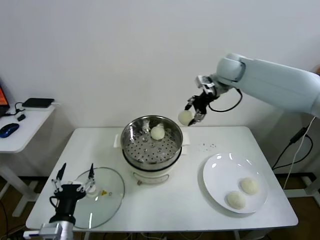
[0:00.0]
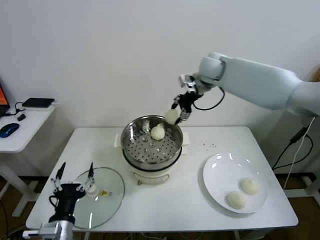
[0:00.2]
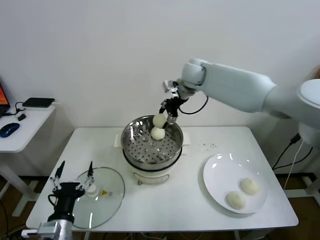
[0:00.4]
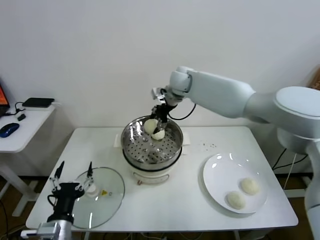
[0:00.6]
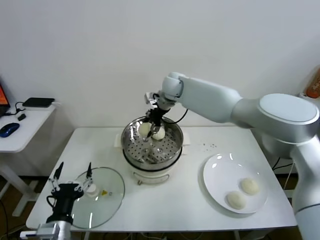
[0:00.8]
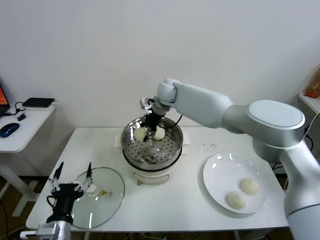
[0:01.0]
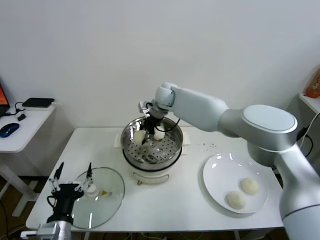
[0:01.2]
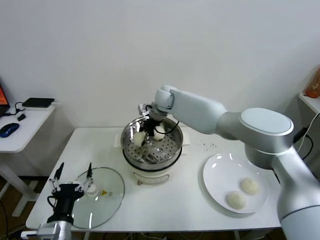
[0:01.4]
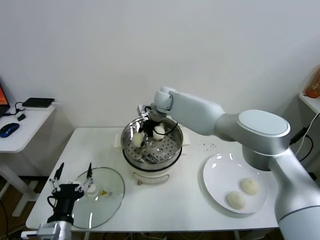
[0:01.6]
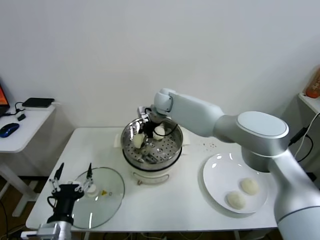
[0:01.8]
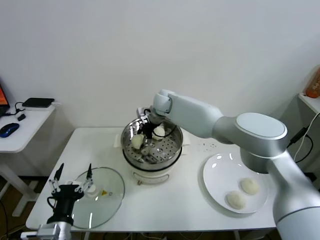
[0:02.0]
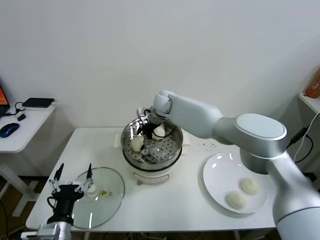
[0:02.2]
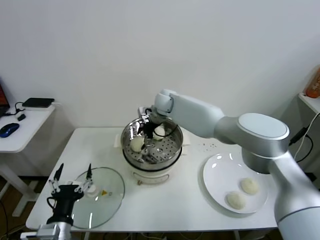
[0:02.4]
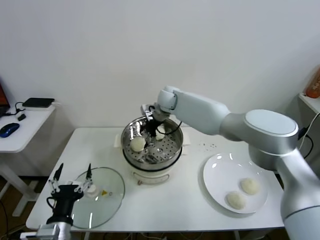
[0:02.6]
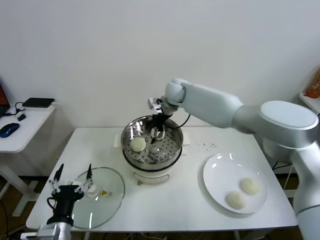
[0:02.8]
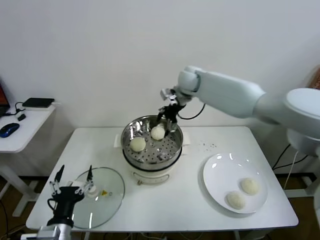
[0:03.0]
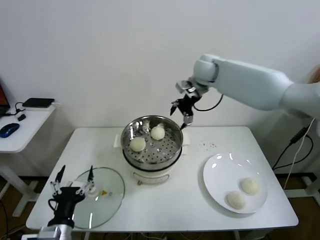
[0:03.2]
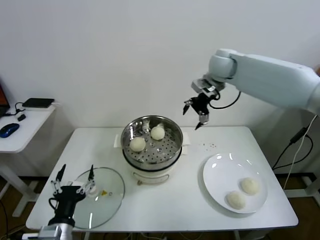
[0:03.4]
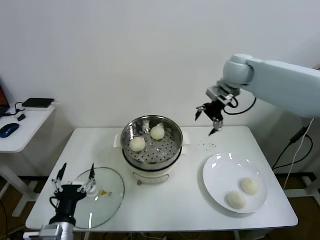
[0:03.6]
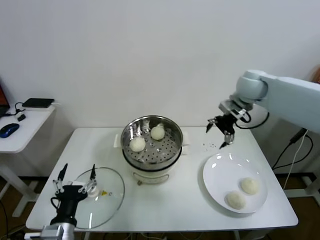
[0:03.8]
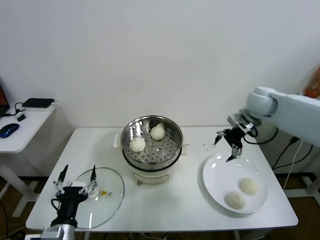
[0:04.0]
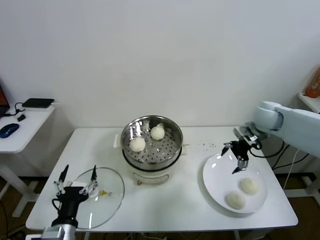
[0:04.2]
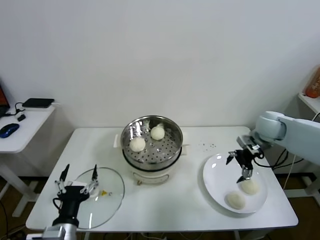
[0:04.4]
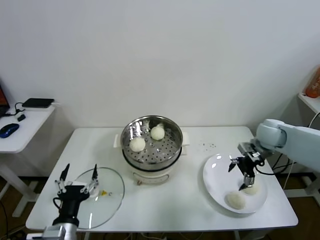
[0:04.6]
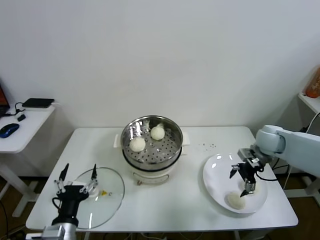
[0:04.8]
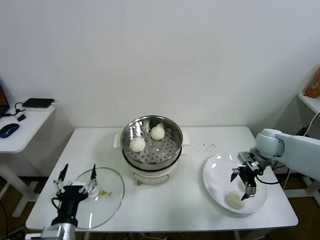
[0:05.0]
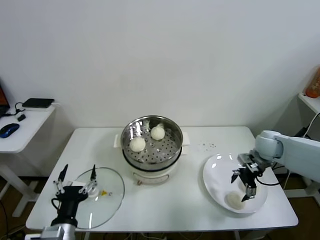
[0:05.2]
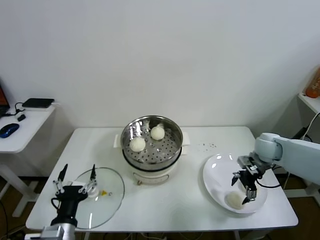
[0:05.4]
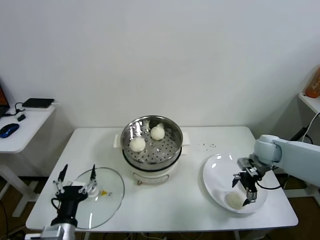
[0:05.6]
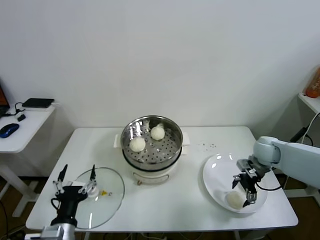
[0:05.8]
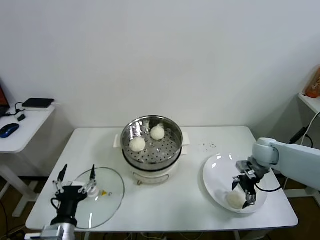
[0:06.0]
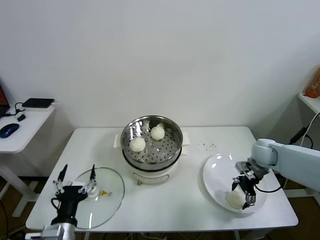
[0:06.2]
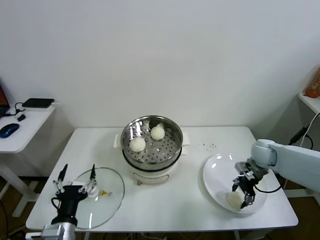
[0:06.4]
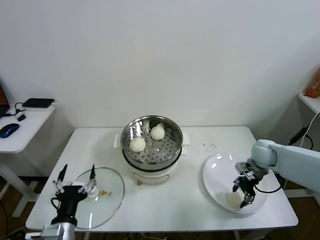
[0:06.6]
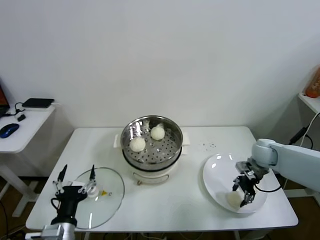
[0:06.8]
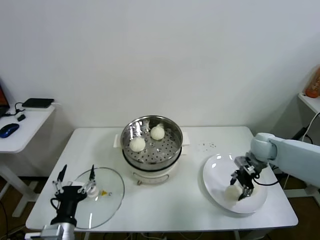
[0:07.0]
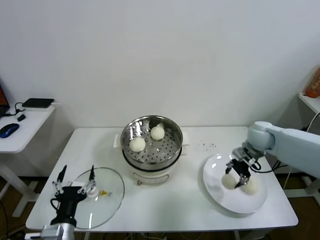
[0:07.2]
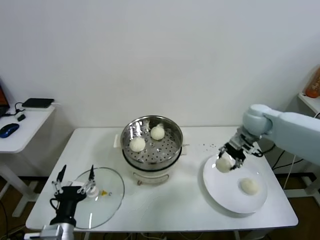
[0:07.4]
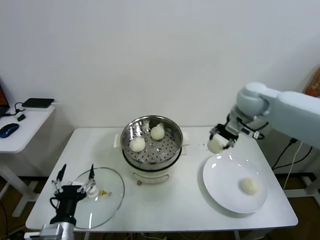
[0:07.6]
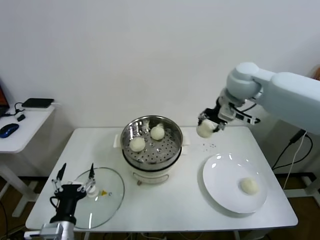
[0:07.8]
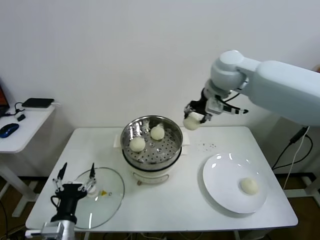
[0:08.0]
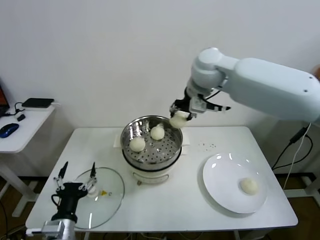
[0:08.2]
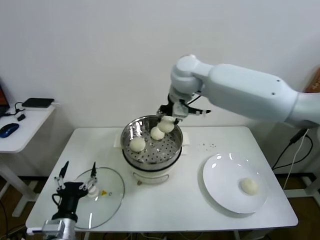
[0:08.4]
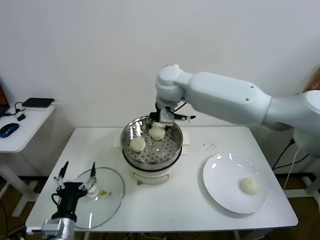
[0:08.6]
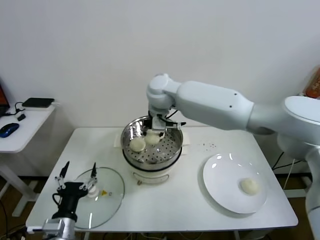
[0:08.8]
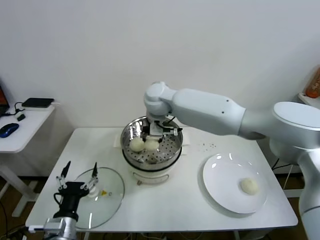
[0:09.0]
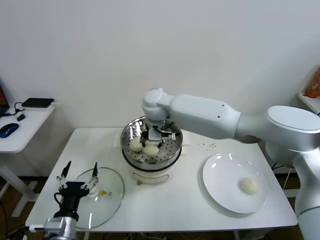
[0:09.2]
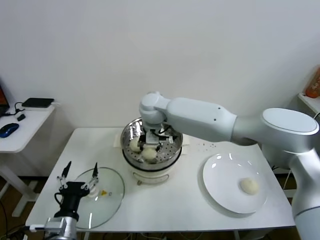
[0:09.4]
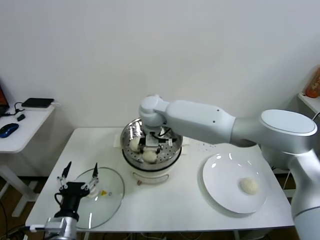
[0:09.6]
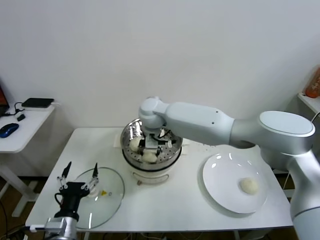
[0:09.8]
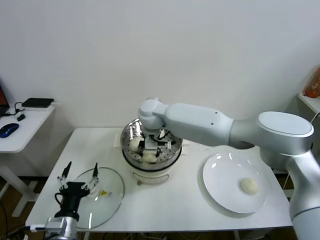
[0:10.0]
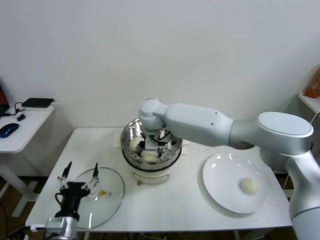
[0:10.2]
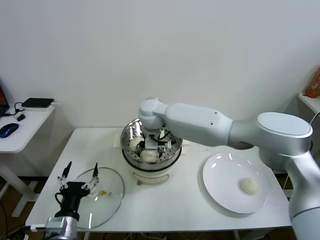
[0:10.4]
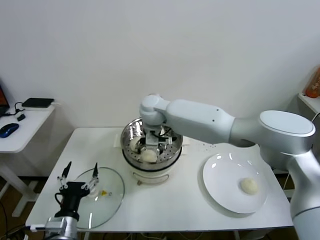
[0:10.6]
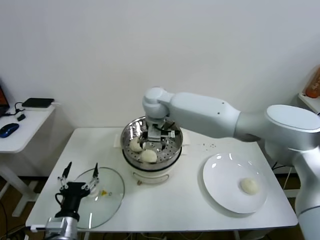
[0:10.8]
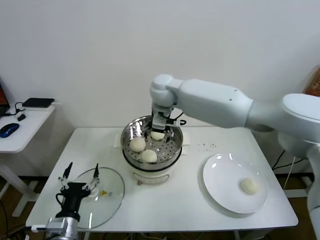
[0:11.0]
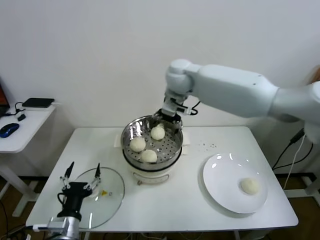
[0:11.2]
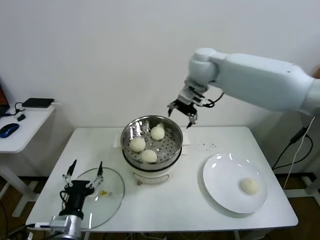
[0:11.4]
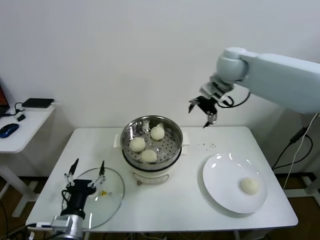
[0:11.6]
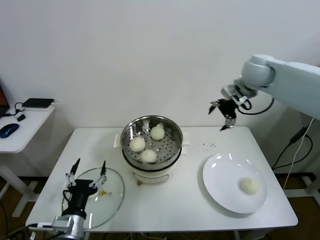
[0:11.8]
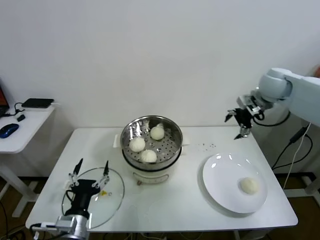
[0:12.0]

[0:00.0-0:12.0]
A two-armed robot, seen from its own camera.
Task of the whole recording: take steamed baozi put them in steamer.
Step, 0:00.0 to 0:02.4: Place the baozi on the steamer with right gripper.
Step, 0:02.6 to 0:06.8: Grasp the baozi in the plate with right gripper.
Step, 0:07.0 to 0:10.6: Place the baozi on the steamer with right gripper.
0:00.0 to 0:01.6: The right gripper shifts about 25 cm to the left and downward.
0:01.6 to 0:03.0: The right gripper is displaced to the right and upward by roughly 15 cm, and opens up.
0:03.0 to 0:04.4: The right gripper shifts some 30 cm to the right, backward and downward.
0:04.4 to 0:06.0: The right gripper moves downward, some 10 cm.
0:06.0 to 0:07.6: The right gripper is displaced upward and to the left by some 20 cm, and closes up.
0:07.6 to 0:09.0: The right gripper shifts some 30 cm to the left.
0:09.0 to 0:10.4: The right gripper travels downward by roughly 5 cm, and opens up.
0:10.4 to 0:12.0: The right gripper travels to the right by roughly 40 cm.

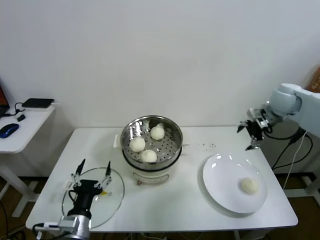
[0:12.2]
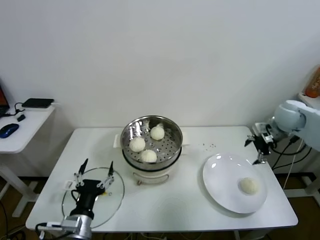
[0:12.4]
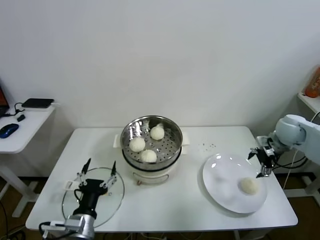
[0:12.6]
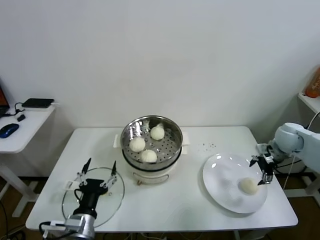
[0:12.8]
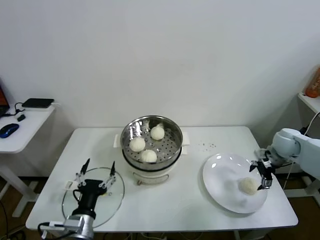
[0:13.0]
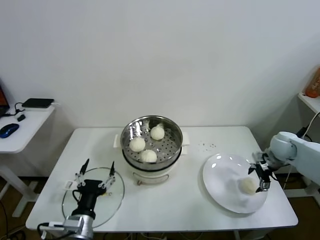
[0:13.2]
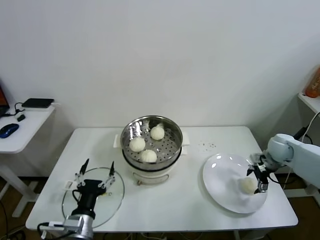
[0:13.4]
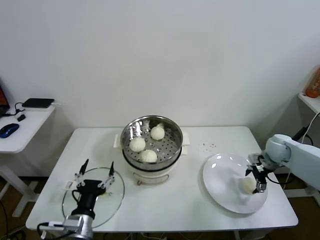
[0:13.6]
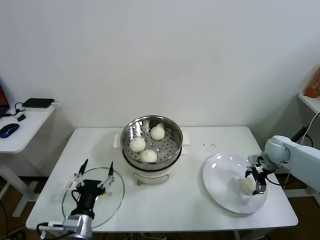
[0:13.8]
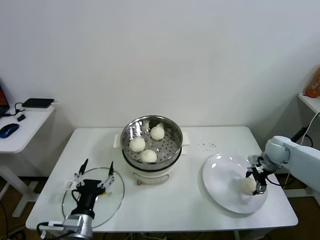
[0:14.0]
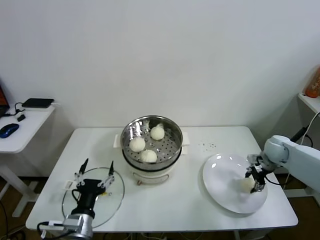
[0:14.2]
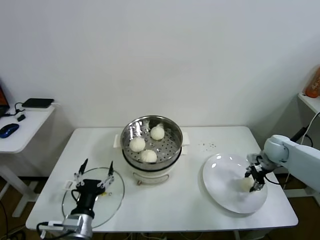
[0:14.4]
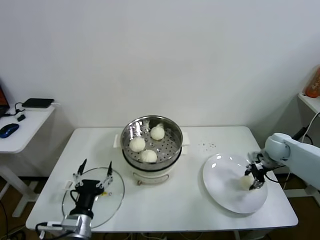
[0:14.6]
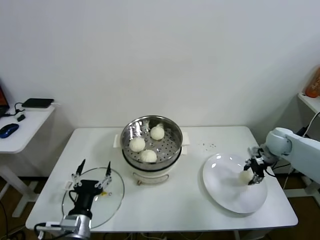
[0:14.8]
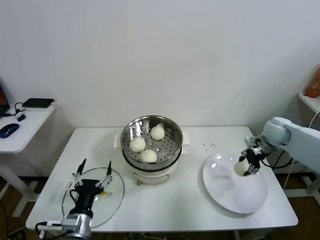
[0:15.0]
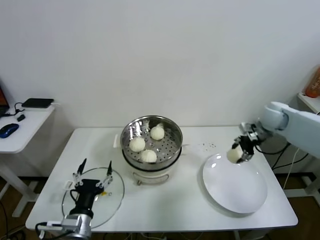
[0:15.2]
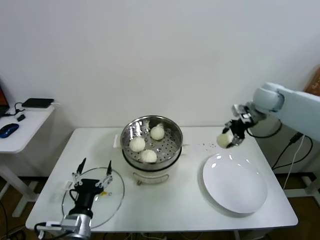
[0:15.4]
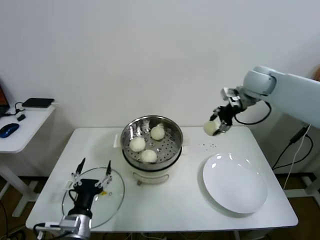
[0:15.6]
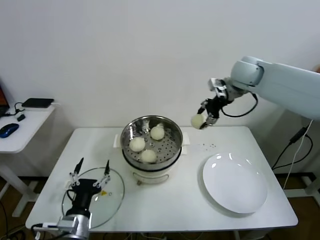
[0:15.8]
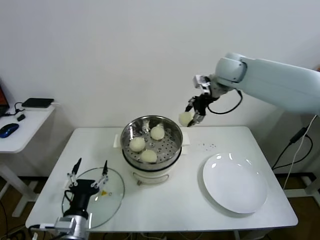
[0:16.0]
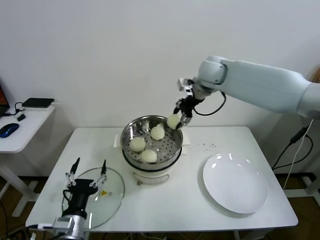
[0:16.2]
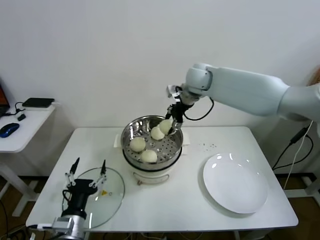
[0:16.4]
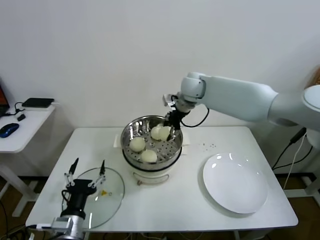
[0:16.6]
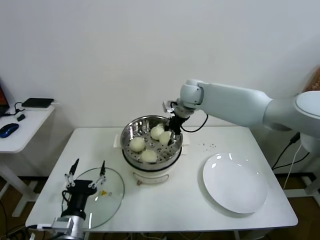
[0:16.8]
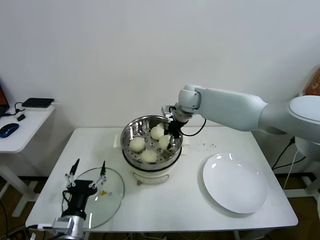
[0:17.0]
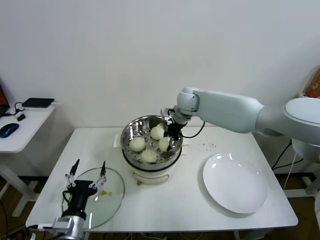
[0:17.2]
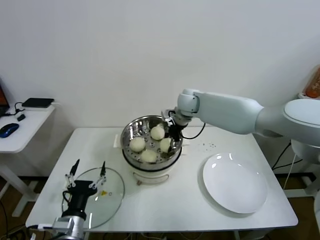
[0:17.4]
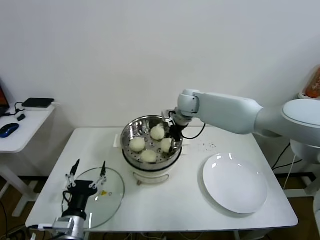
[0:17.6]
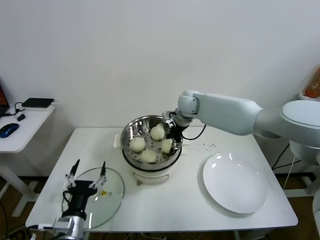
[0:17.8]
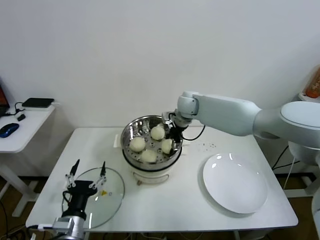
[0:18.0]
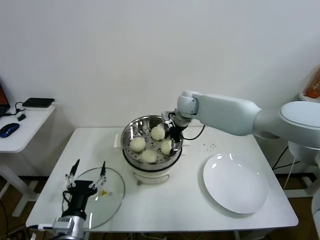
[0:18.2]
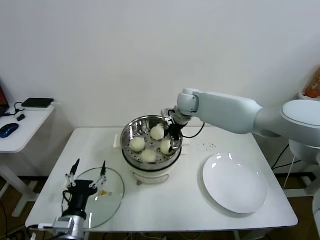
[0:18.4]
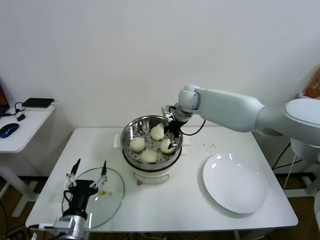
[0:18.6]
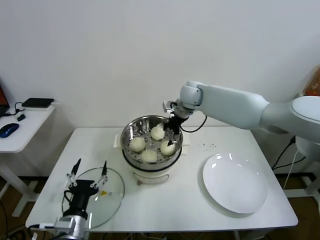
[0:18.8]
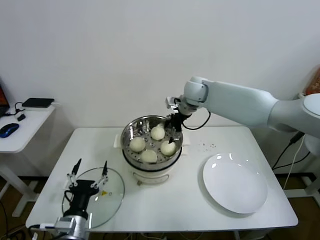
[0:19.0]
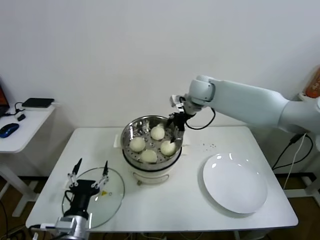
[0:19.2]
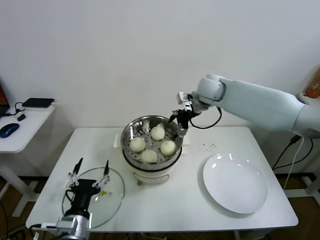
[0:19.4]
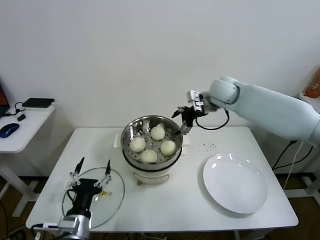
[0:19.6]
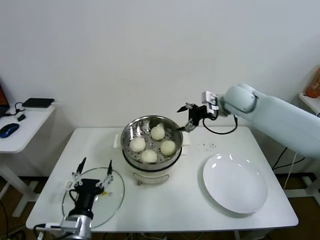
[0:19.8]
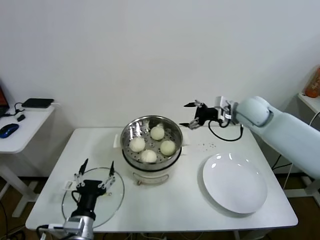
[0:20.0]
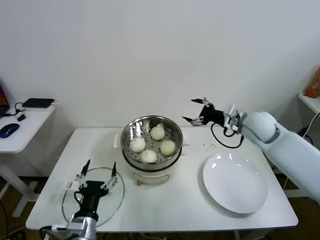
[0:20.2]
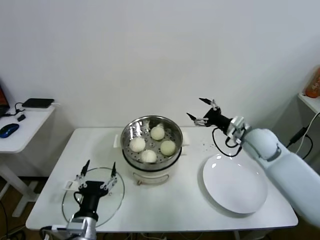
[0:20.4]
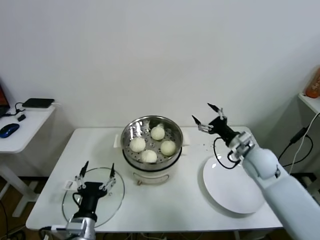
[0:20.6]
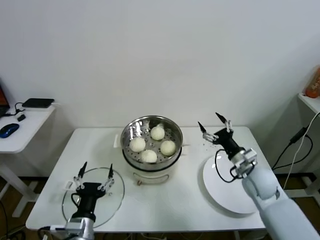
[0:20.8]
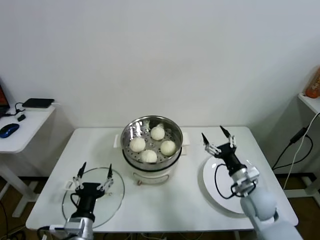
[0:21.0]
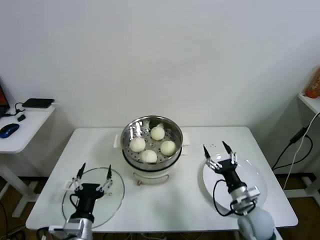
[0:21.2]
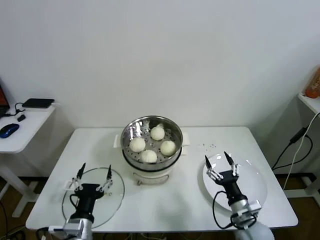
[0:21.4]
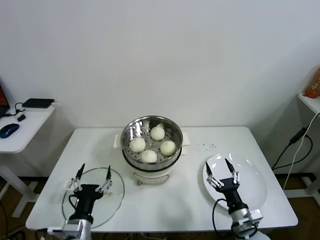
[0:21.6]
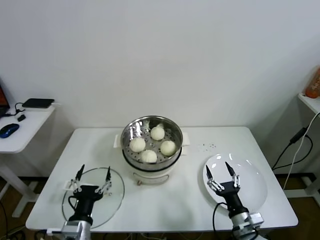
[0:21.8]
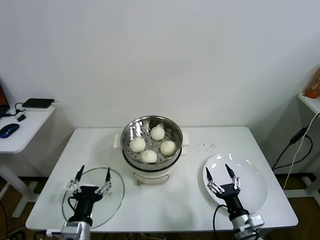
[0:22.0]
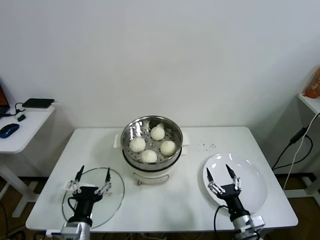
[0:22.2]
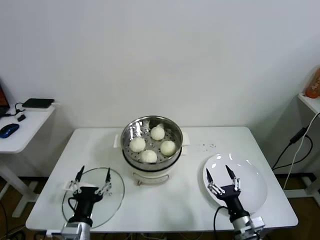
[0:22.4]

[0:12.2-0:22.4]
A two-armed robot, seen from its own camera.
Task of the whole recording: take steamed baozi put them in steamer.
Step, 0:12.2 to 0:14.4: Grasp the baozi in the plate with right gripper.
Step, 0:14.6 to 0:18.2: Place the baozi on the steamer with right gripper.
0:12.2 to 0:13.6: The right gripper shifts approximately 20 cm downward.
0:13.6 to 0:15.2: The right gripper is displaced upward by about 10 cm, and closes.
0:15.2 to 0:16.6: The right gripper moves to the left, about 30 cm.
0:16.6 to 0:18.0: The right gripper shifts approximately 10 cm downward.
0:18.0 to 0:19.4: The right gripper travels upward and to the right by about 10 cm, and opens its fingers.
0:19.4 to 0:21.0: The right gripper moves backward, downward and to the right, some 40 cm.
0:21.0 to 0:22.4: The right gripper travels backward and downward by about 15 cm.
